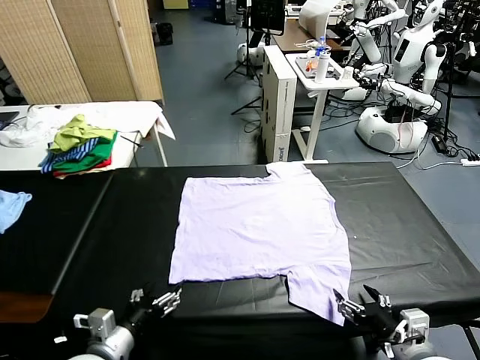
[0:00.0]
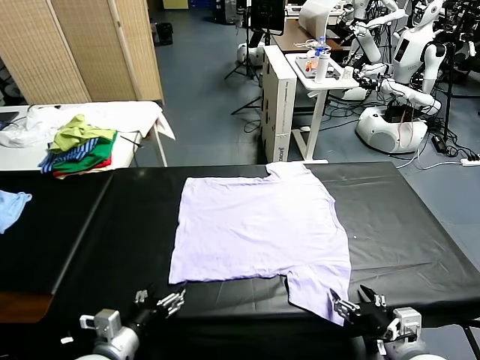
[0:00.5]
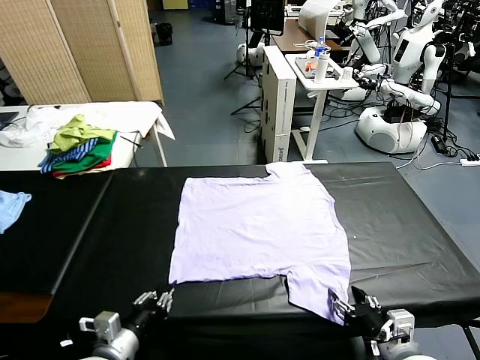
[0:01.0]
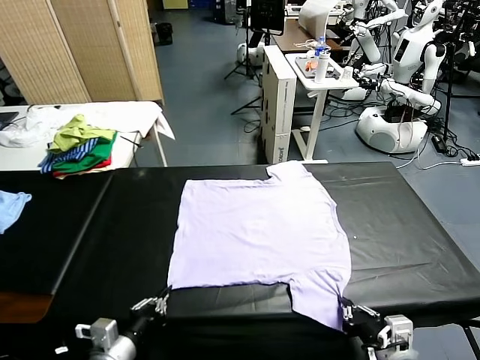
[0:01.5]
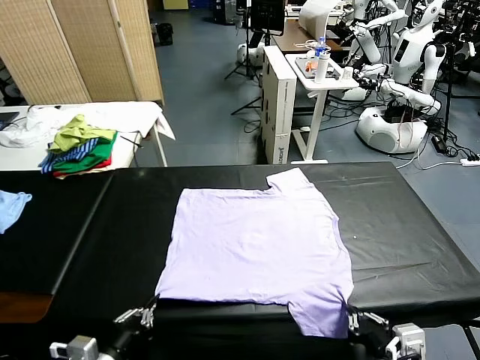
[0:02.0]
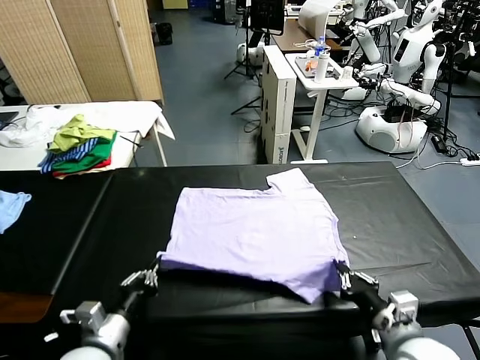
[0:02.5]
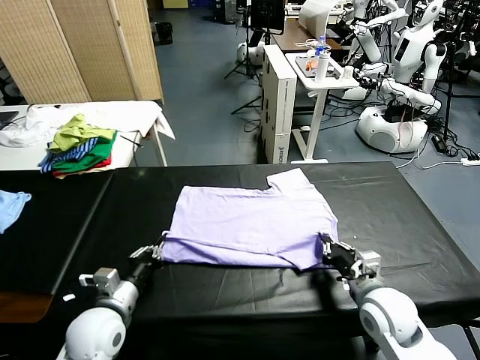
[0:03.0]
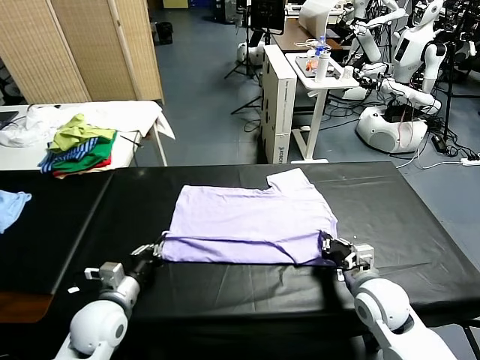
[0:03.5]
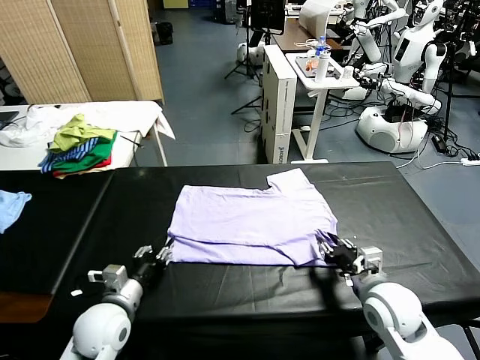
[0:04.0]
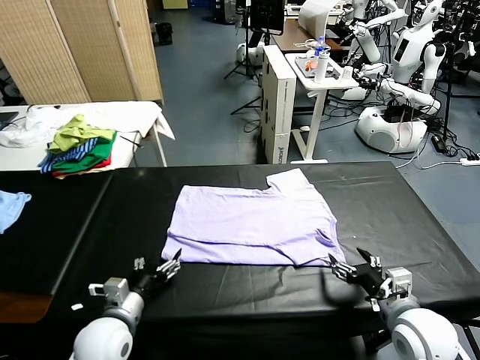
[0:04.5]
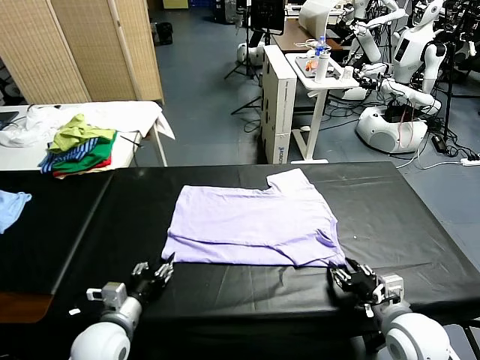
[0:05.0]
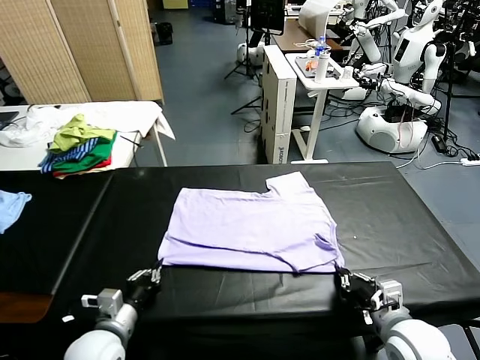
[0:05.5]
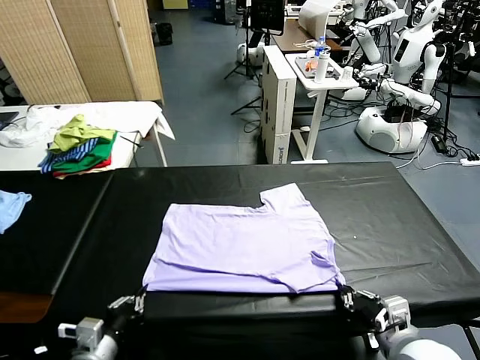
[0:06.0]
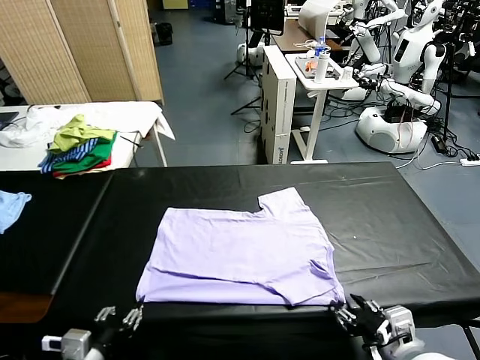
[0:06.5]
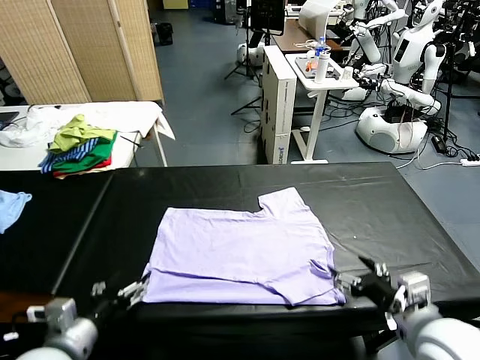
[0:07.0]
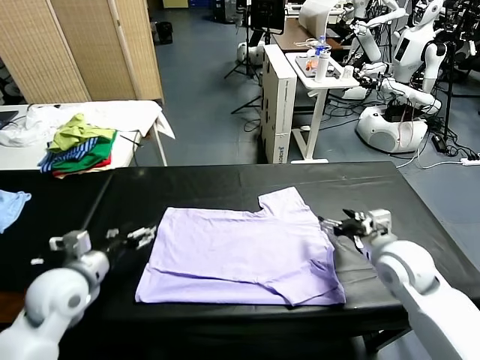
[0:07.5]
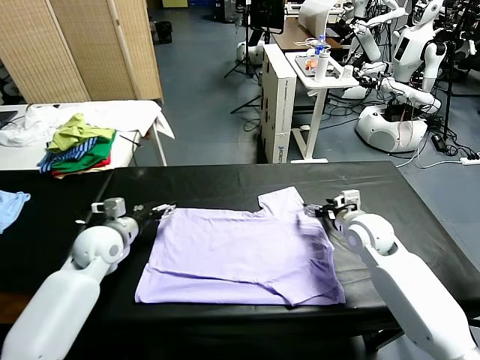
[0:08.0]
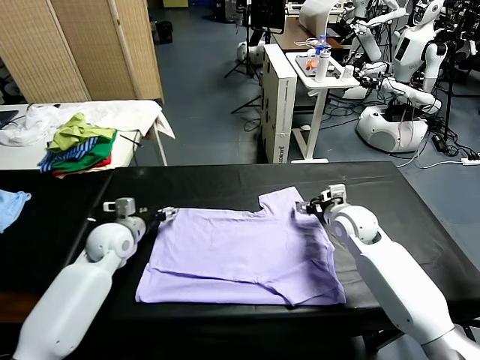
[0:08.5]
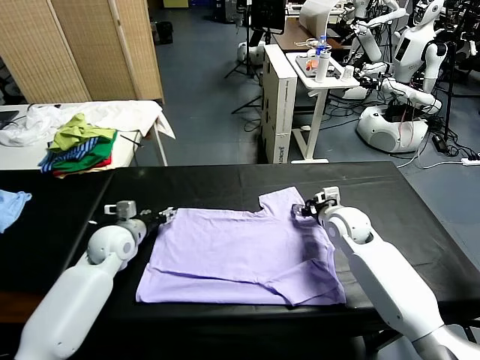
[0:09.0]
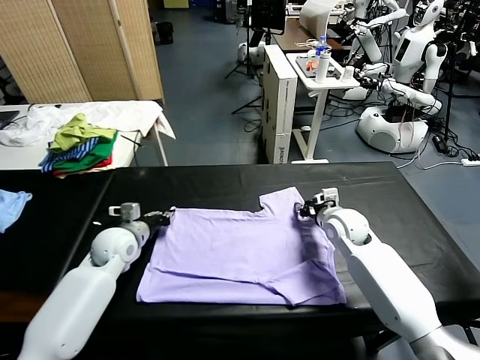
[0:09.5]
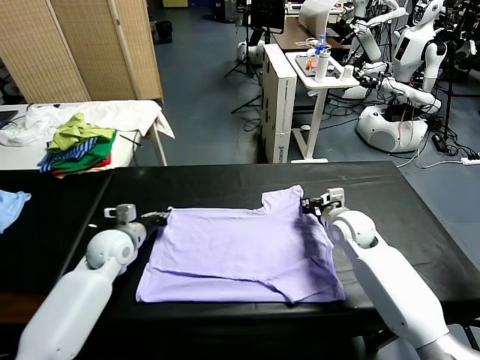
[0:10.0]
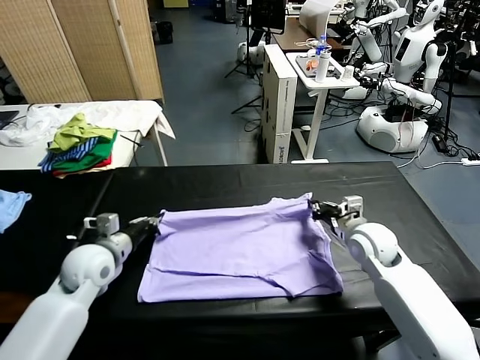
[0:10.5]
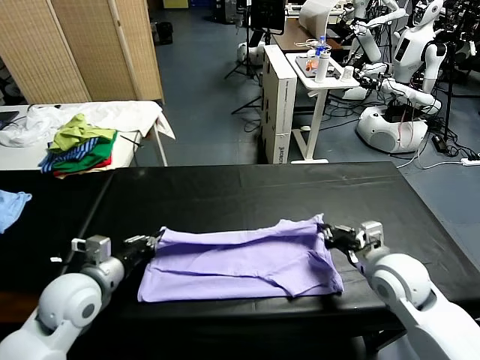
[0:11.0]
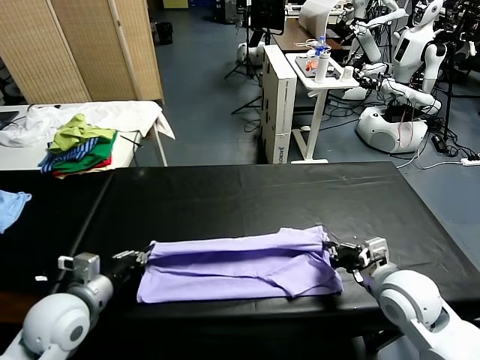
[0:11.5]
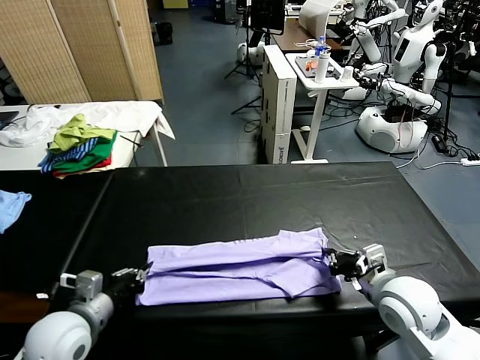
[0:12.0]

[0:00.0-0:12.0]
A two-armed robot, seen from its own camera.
Task of the whole recording: fold and organize the clothes.
Step, 0.0 to 1.5 s: use both grippers simultaneously to clamp the lower edge of the clothing fabric.
Step, 2.0 to 4.0 s: use both grippers to drag the lower edge of the fabric forward and fold it over the upper edge.
Step, 4.5 to 6.5 s: Drag the clothes downward with both gripper.
Step, 7.0 to 10.0 s: use both grippers simultaneously to clamp the upper edge of the clothing fabric.
2.0 to 4.0 s: The two grippers go some 10 cm forward. The right gripper opens its fingers. Meanwhile the left gripper opens its fingers.
4.0 to 6.0 s: Both grippers travel together backward, roughly 10 cm. The right gripper closes. The left gripper closes its fingers.
6.0 to 8.0 s: Both grippers travel together forward, roughly 30 cm. The right gripper opens up; the left gripper opens.
8.0 to 10.0 s: The right gripper closes its fingers. Meanwhile the left gripper closes.
10.0 to 12.0 s: The two grippers go approximately 20 cm backward.

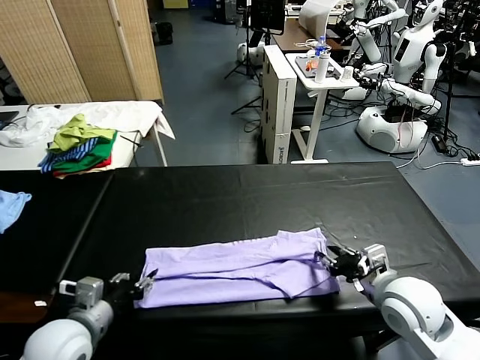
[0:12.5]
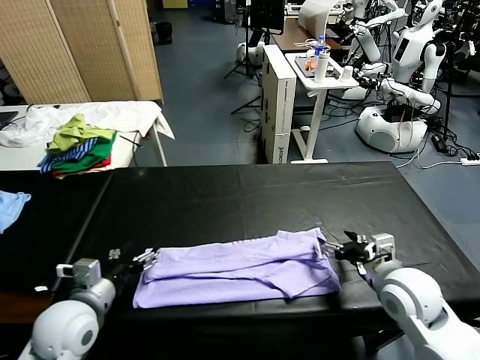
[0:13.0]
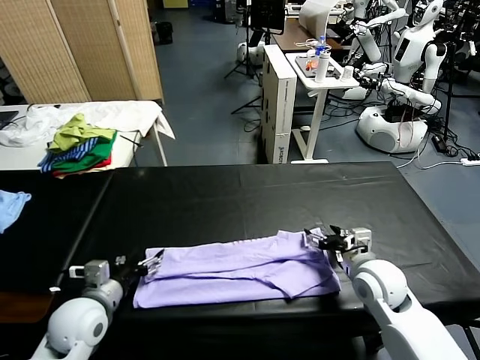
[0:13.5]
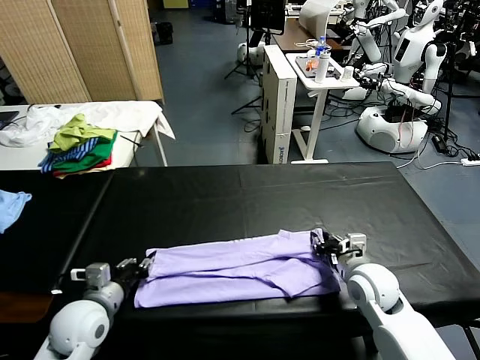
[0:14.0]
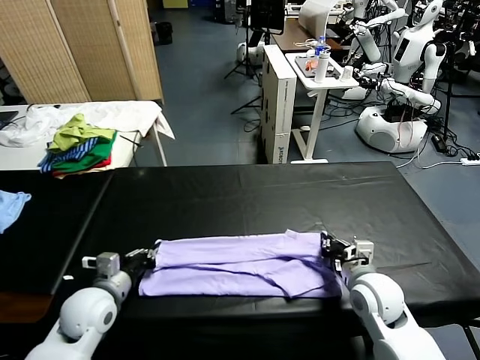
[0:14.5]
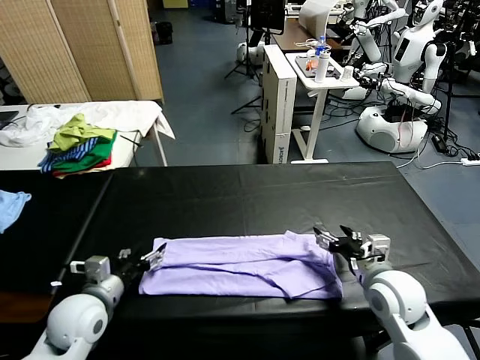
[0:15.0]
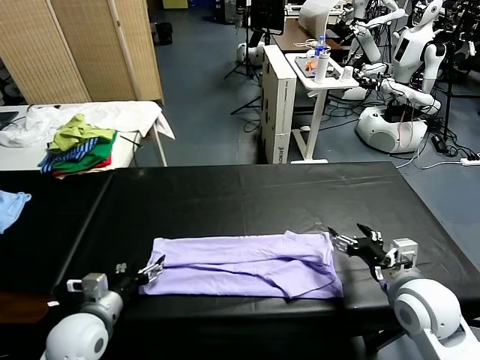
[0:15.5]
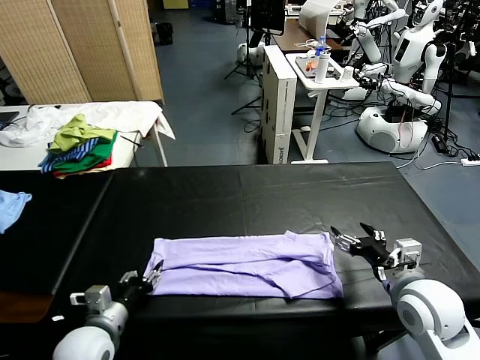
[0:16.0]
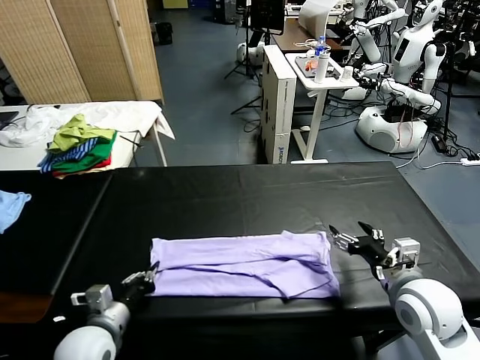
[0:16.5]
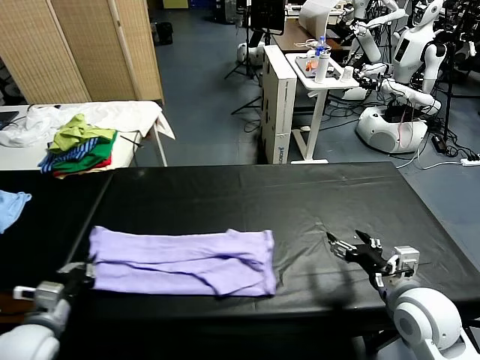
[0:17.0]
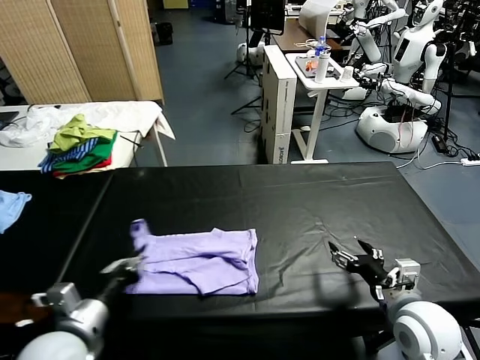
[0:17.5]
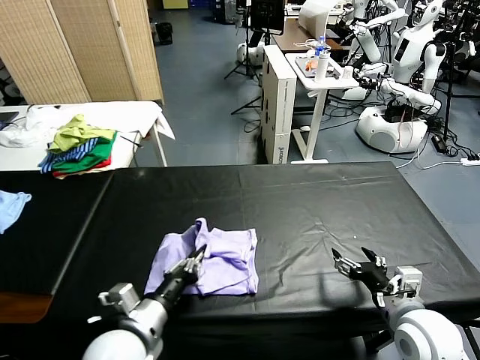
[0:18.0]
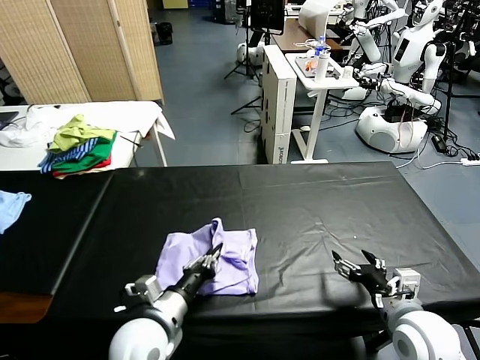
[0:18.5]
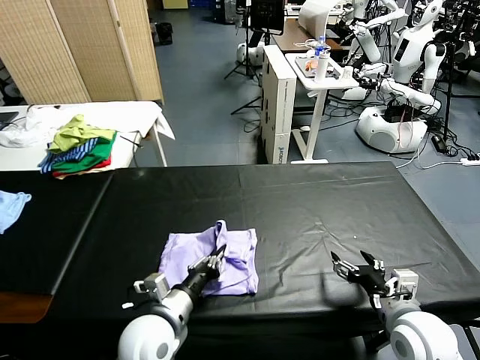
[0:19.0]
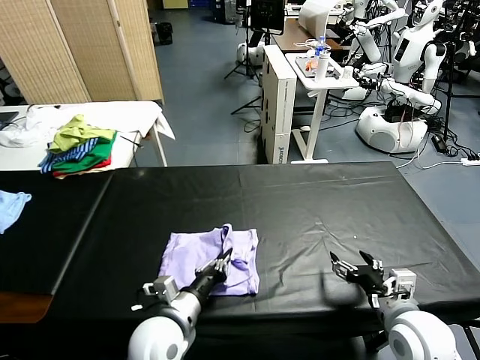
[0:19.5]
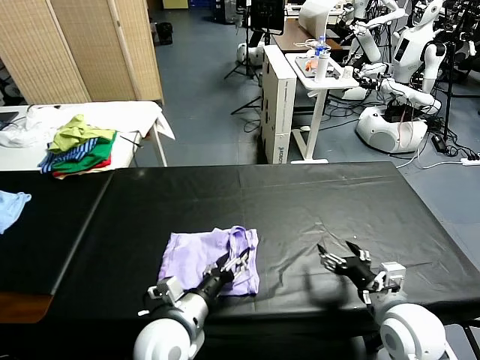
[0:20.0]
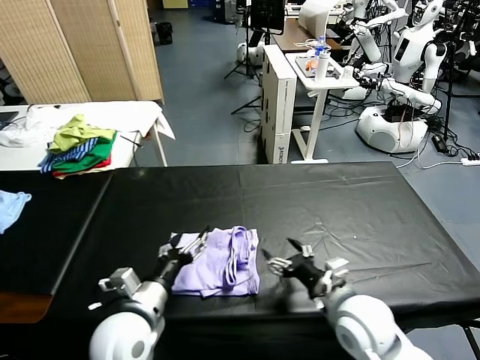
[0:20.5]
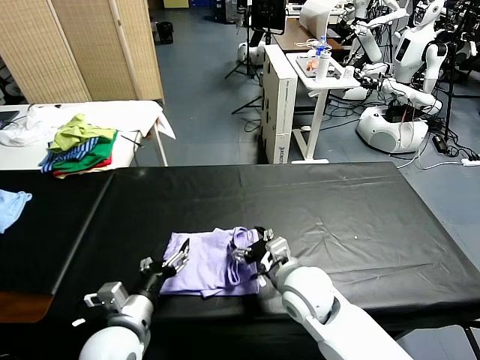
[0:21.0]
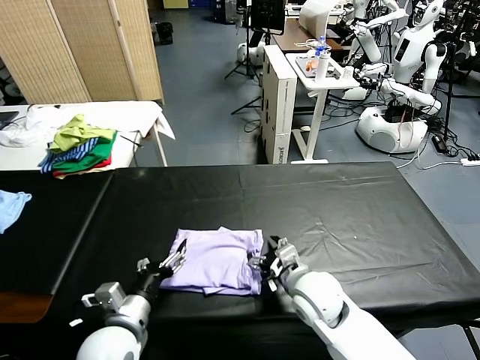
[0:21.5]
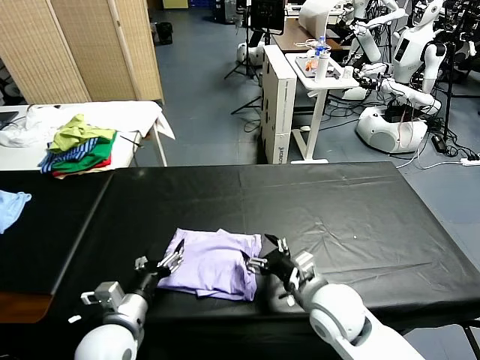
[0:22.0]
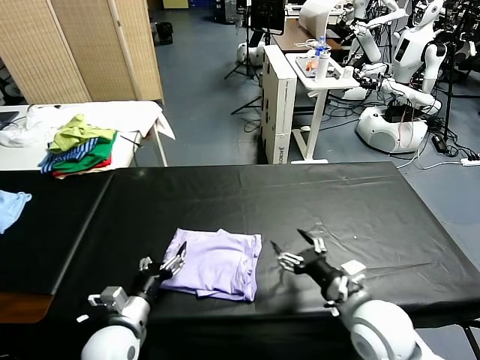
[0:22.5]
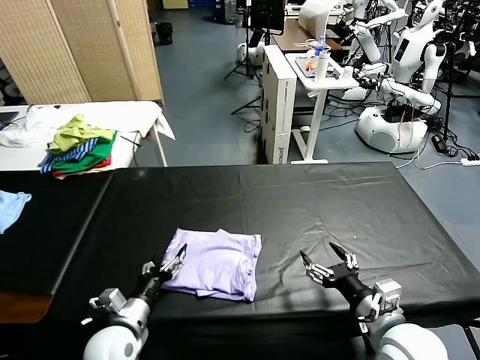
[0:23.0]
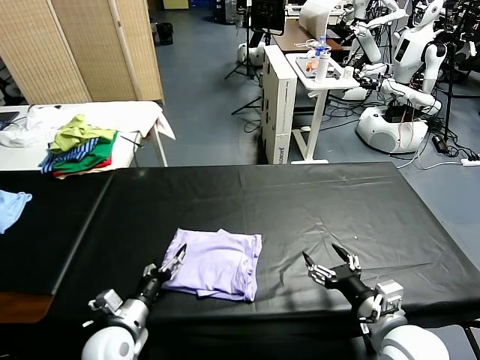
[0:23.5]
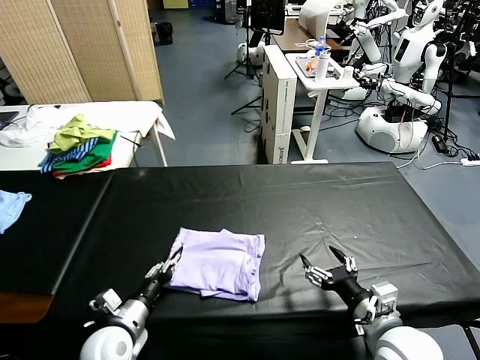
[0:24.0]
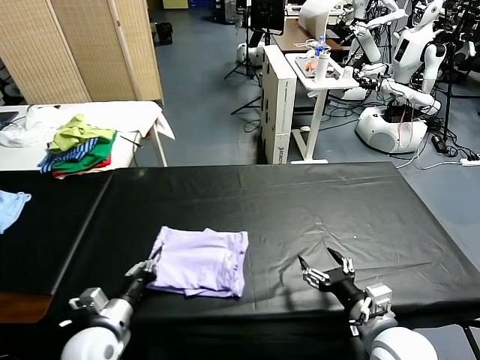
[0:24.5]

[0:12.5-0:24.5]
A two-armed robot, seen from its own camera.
Task of the whole recording: fold and organize the clothes.
Step, 13.0 to 16.0 s: use the left gripper to clamp the left edge of the fabric.
Step, 16.5 to 20.0 s: use the left gripper to drag the left edge of the fabric to the left and folds it over the right edge.
12.5 to 14.5 s: The right gripper goes approximately 5 cm downward, and closes; the left gripper heads forward and downward, covering about 10 cm, and closes up.
14.5 to 16.5 s: The left gripper heads backward, covering roughly 10 cm, and opens and closes again, while the right gripper moves upward and backward, about 5 cm, and opens its fingers.
16.5 to 18.5 s: The left gripper travels to the right by about 10 cm; the right gripper ends up approximately 5 cm from where it was.
18.5 to 20.5 s: The left gripper opens its fingers. Meanwhile the right gripper moves to the left, some 15 cm.
20.5 to 22.5 s: The left gripper shifts about 5 cm downward. The right gripper travels to the right by approximately 5 cm.
22.5 to 24.5 s: The left gripper closes. Meanwhile the right gripper moves roughly 5 cm.

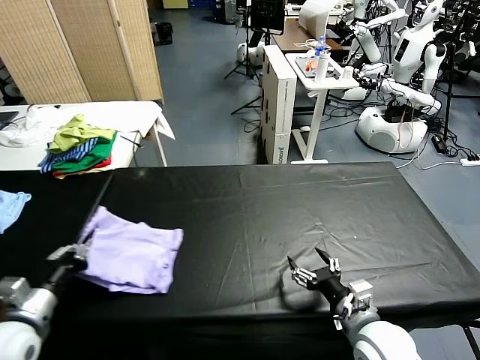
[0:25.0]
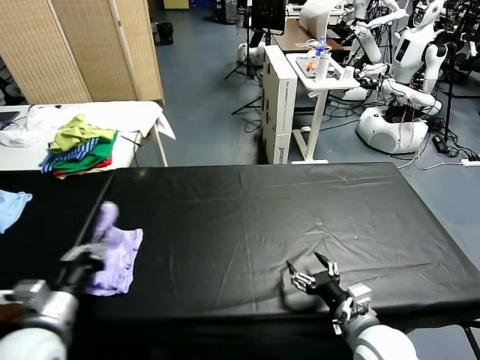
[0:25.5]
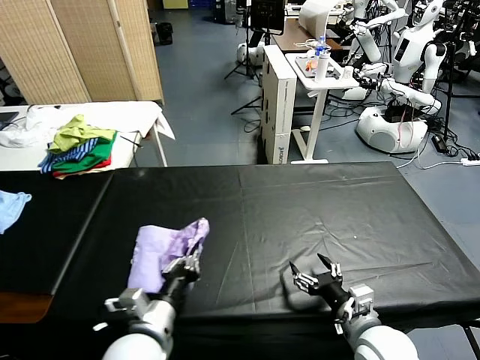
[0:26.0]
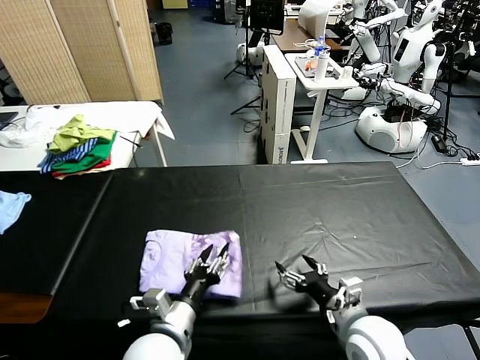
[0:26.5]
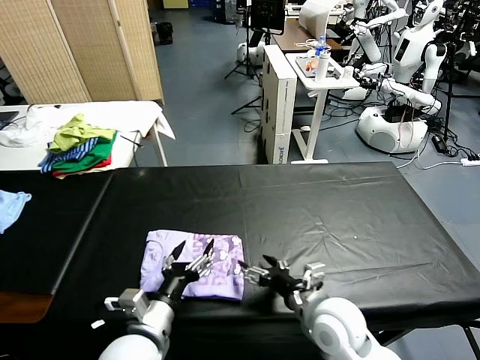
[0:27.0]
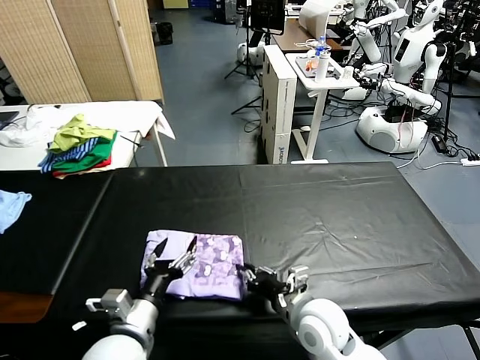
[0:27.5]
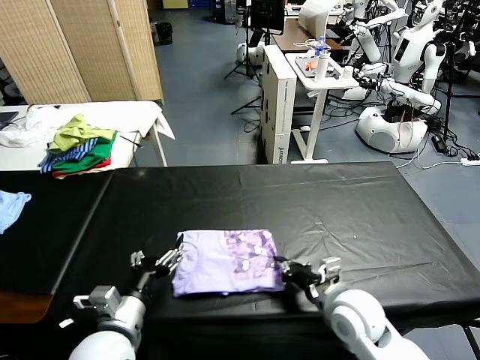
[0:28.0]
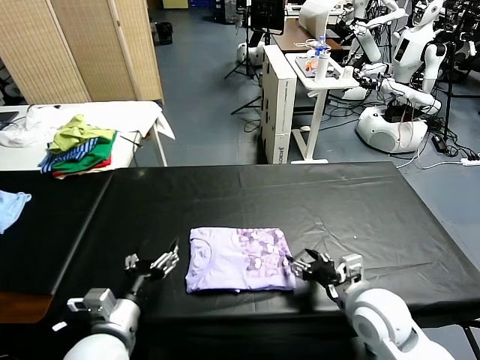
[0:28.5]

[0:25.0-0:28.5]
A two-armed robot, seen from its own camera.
Task of the whole recording: fold and organize the clothes.
Step, 27.0 to 28.5 s: Drag the clothes to the center of the table.
25.0 to 27.0 s: The left gripper is displaced to the right by approximately 20 cm, and opens its fingers. The right gripper is displaced to the left by roughly 5 cm.
27.0 to 28.5 s: The right gripper travels to the right by roughly 5 cm, and closes up; the left gripper is displaced to the left by roughly 5 cm.
